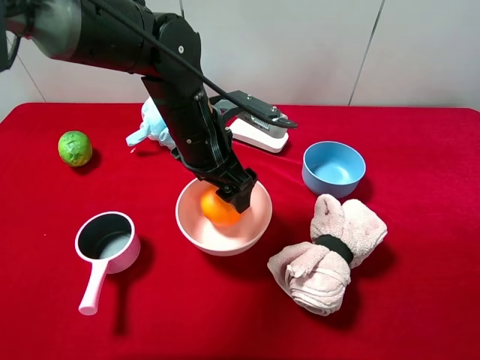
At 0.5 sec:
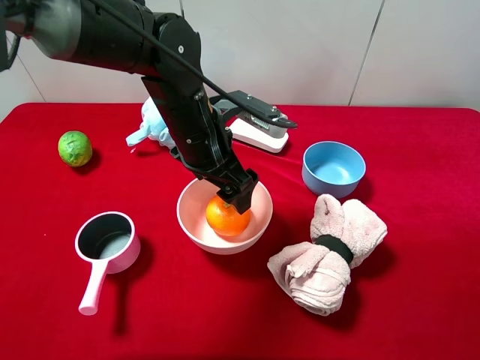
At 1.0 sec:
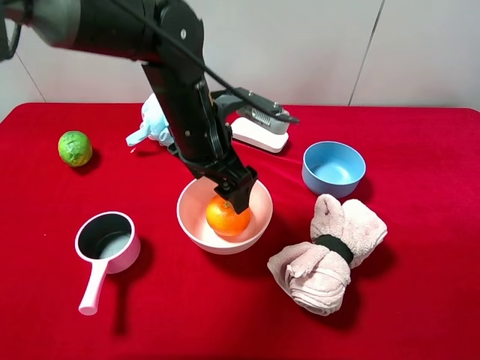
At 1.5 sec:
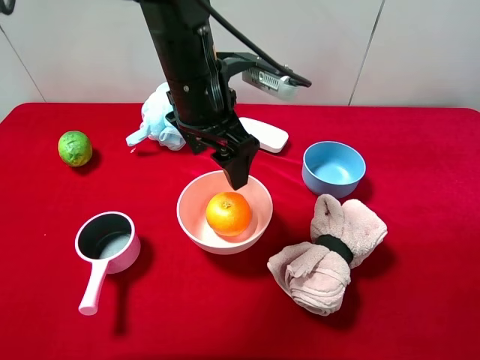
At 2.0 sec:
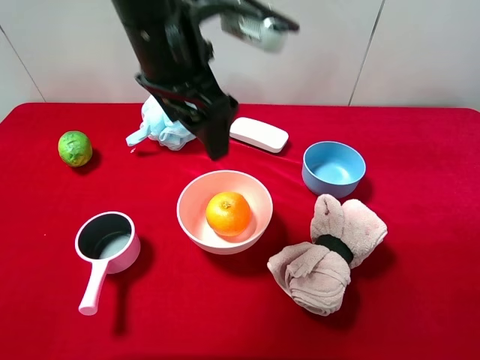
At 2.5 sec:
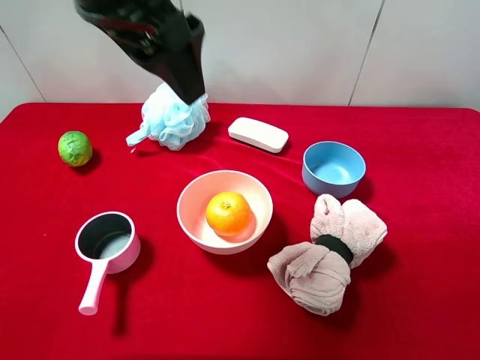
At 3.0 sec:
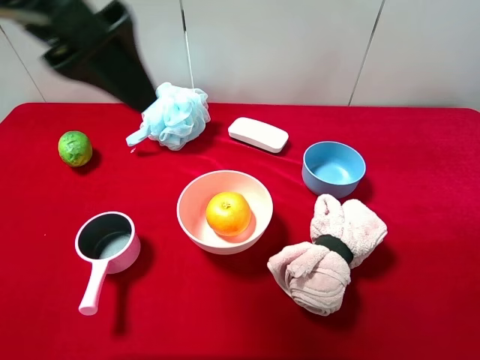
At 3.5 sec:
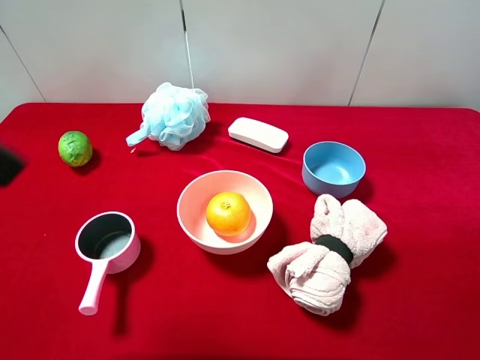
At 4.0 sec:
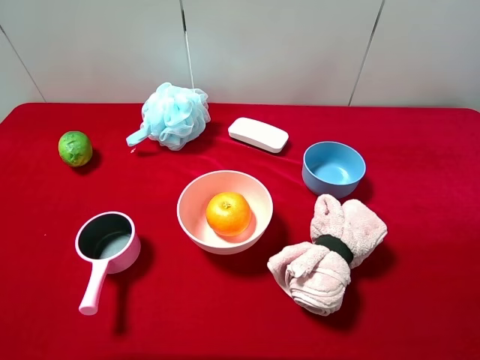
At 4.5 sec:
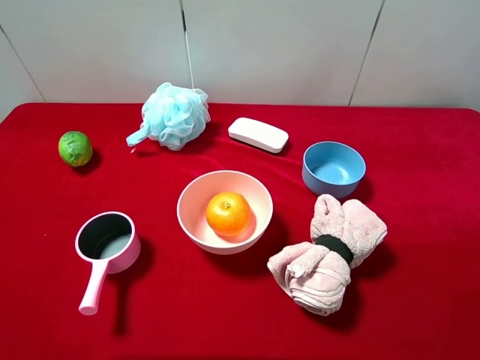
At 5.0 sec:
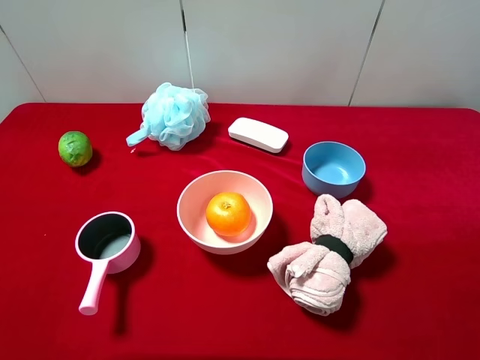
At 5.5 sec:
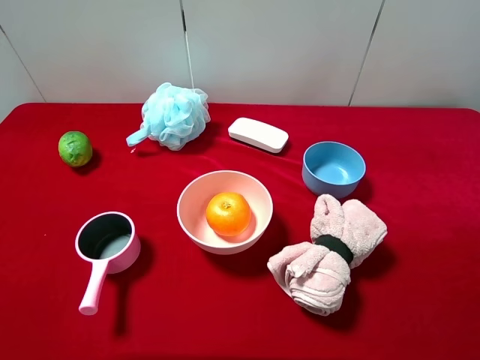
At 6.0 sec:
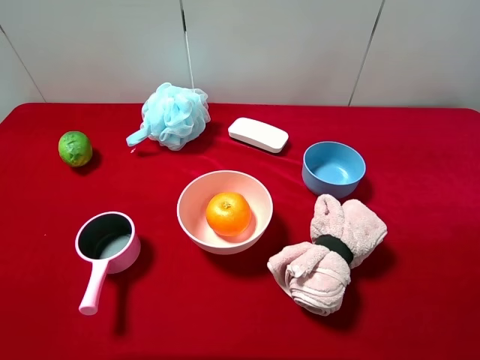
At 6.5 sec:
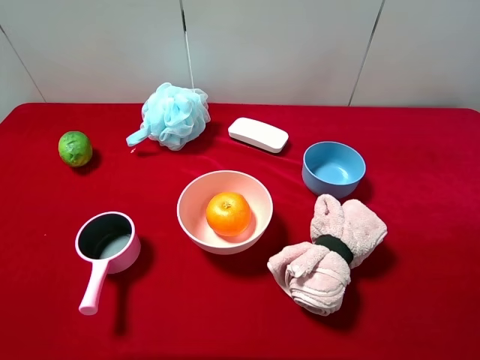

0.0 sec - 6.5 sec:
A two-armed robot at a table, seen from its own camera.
Task of the whole recording: pick up an item with a gripper and place it in a random container on the desktop.
0.0 sec - 2.0 sec: The left gripper travels upward by about 15 cm.
2.0 sec - 4.5 sec: The left gripper heads backward and to the left, covering approximately 35 cm, and opens its fingers.
